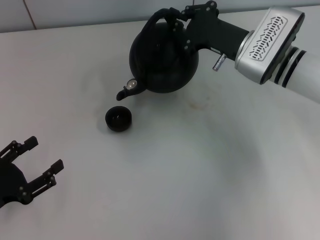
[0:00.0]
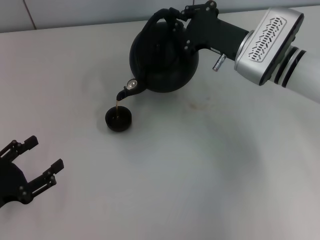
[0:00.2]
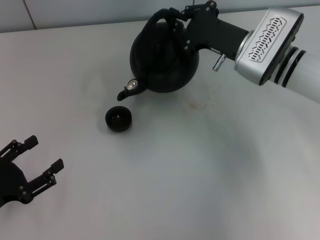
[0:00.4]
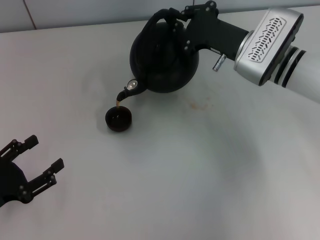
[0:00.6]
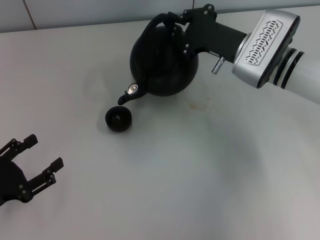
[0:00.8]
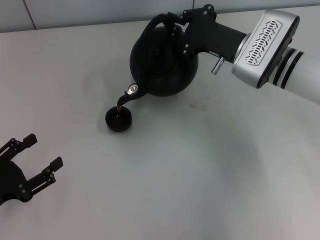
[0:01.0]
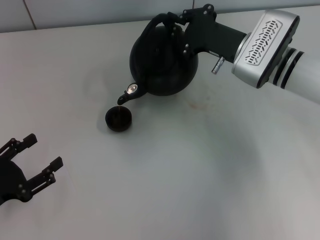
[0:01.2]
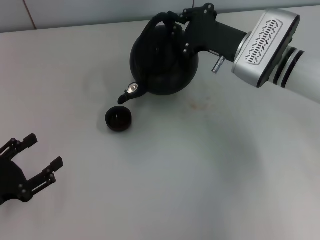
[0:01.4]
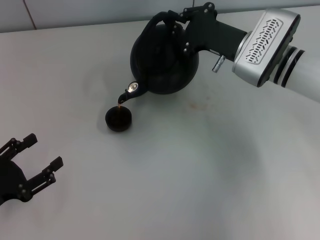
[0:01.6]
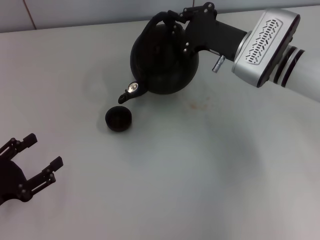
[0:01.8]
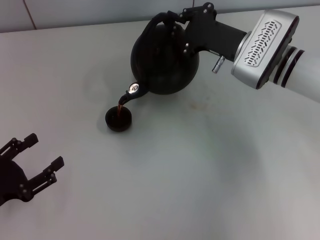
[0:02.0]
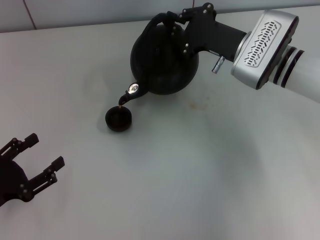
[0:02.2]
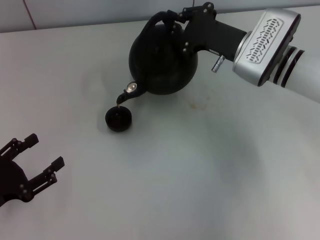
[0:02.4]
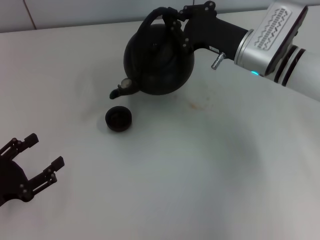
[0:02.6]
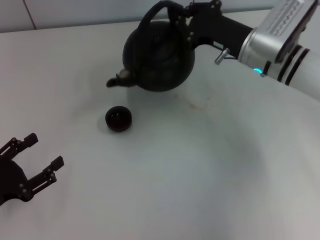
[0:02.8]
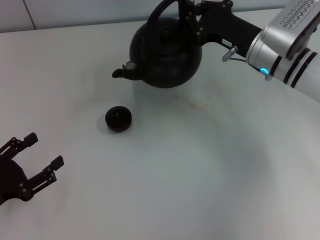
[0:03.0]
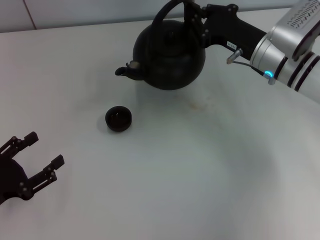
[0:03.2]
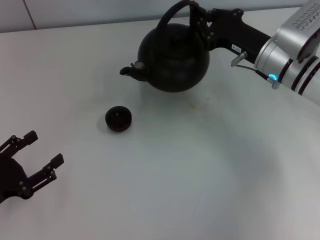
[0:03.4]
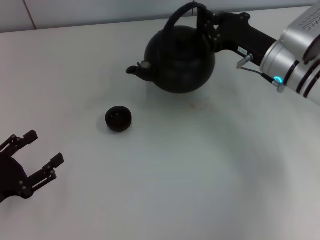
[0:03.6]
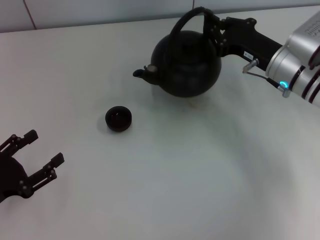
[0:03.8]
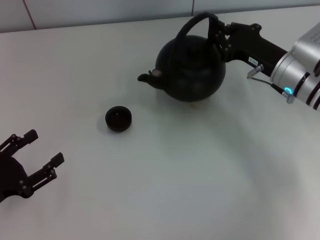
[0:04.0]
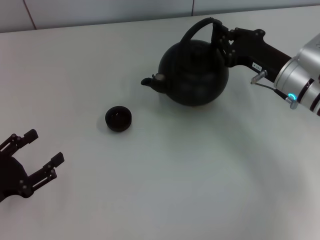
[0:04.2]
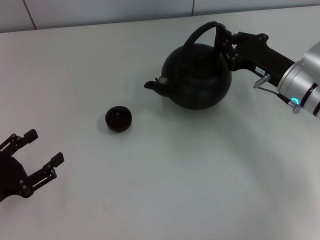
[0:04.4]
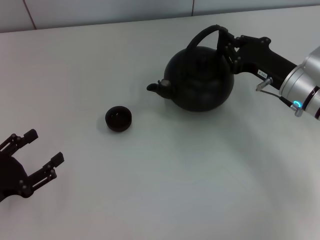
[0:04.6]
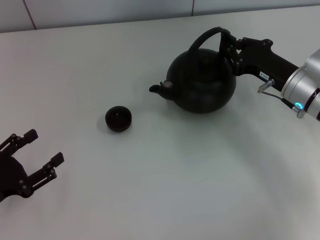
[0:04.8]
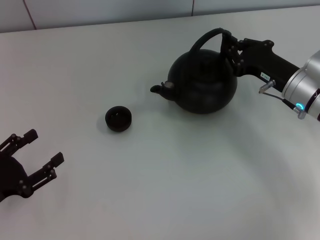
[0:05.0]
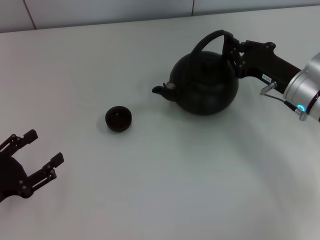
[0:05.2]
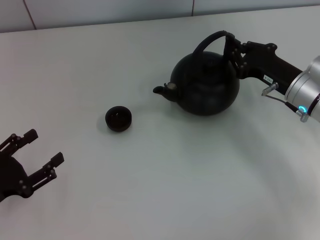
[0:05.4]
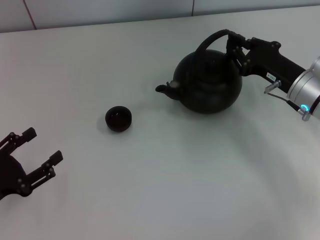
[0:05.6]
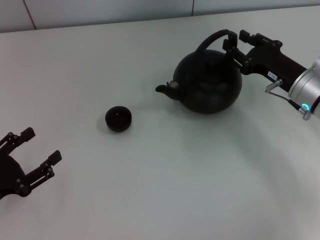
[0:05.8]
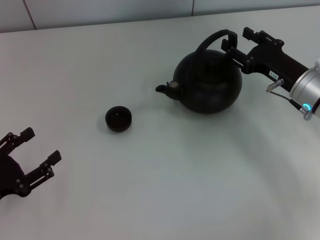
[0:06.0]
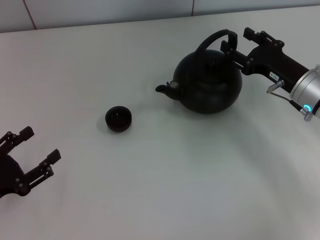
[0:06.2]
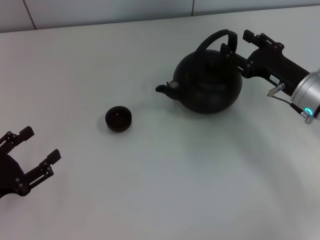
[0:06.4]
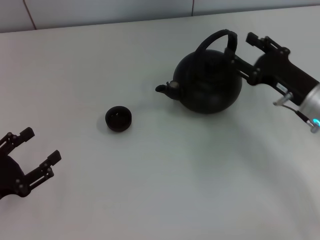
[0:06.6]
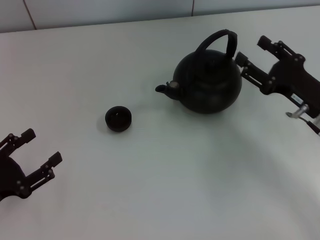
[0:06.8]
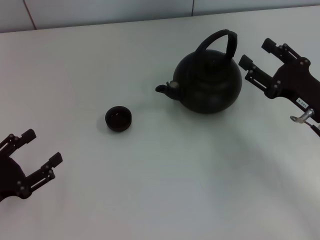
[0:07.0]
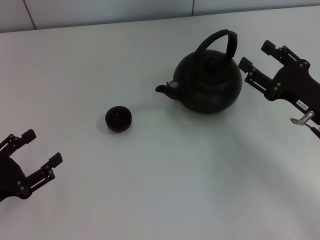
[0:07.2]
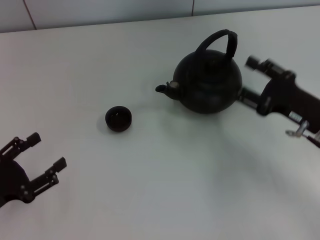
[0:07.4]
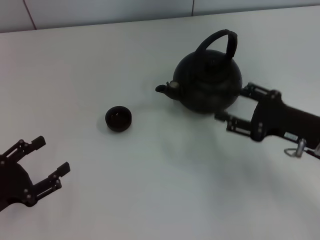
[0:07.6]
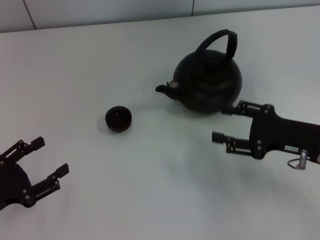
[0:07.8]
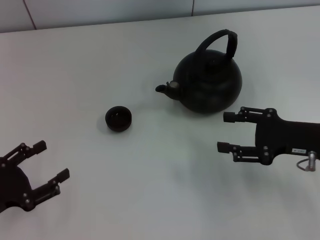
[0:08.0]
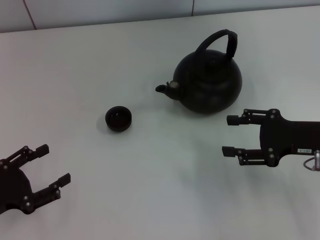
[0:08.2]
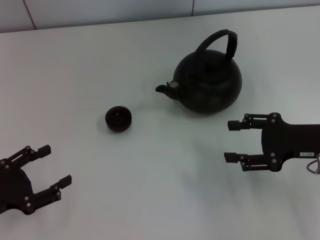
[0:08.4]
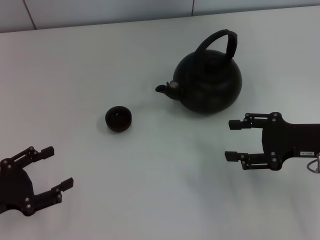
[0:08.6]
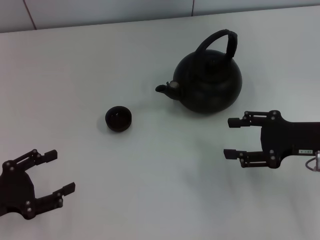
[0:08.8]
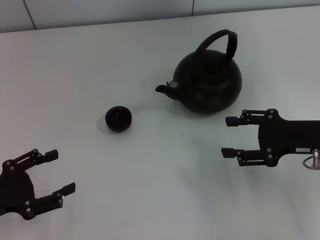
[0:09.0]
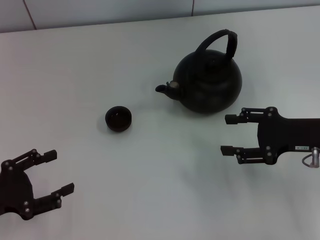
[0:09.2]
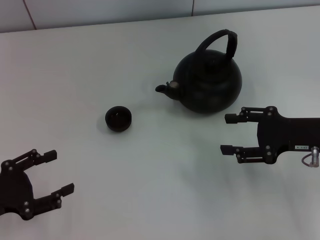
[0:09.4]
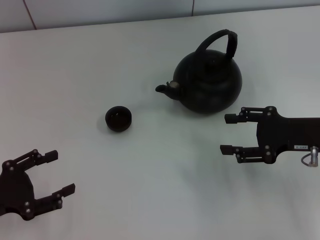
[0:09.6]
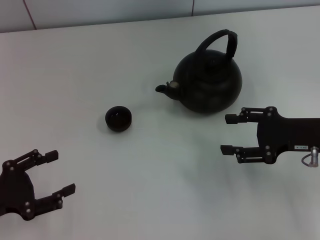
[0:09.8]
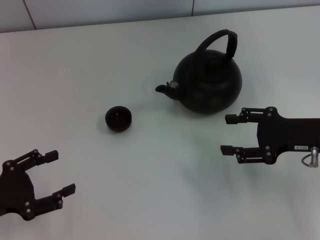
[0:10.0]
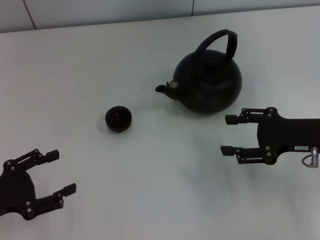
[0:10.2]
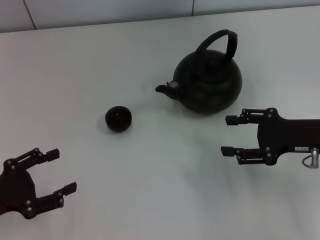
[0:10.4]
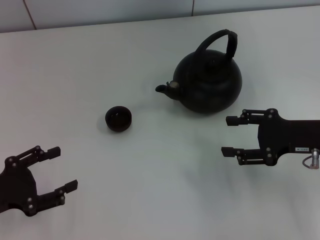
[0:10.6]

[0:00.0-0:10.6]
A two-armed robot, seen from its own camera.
Task of the whole recording: Grasp the handle of the teapot with one hand and pour tea into the teacup.
Step, 0:02.0 to 0:06.4: Put down the teapot with the right gripper.
0:00.0 to 0:01.6: Neither gripper changes place.
0:03.0 to 0:04.6: The right gripper moves some 10 cm.
0:04.6 to 0:06.0: The right gripper opens up.
0:06.0 to 0:07.6: The right gripper shifts about 10 cm backward.
0:09.0 to 0:10.6: The two grippers keep their place.

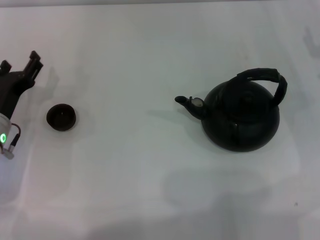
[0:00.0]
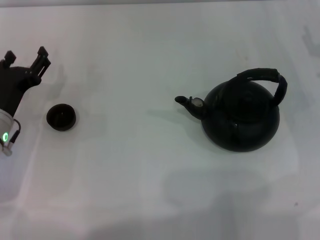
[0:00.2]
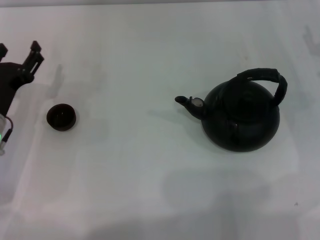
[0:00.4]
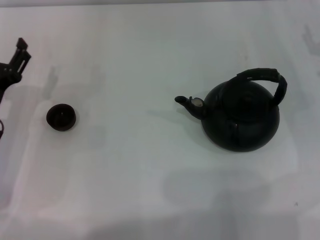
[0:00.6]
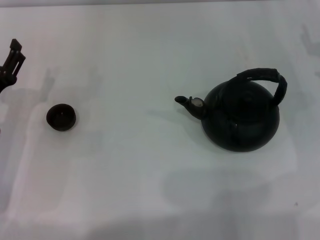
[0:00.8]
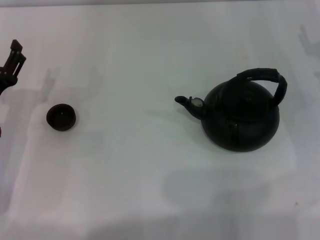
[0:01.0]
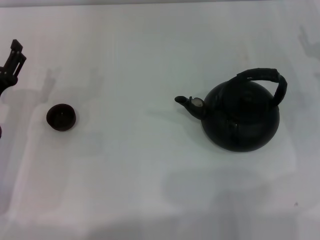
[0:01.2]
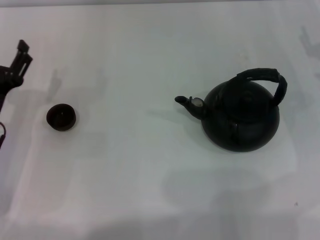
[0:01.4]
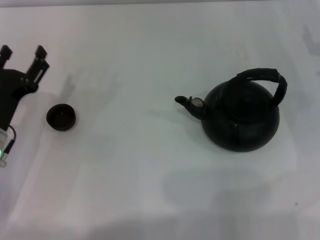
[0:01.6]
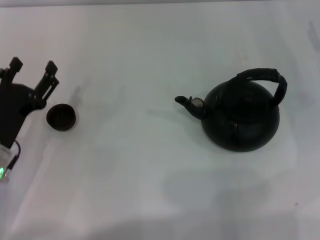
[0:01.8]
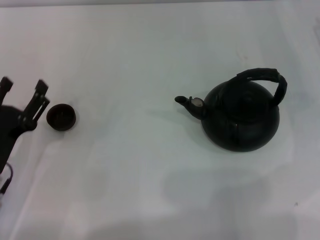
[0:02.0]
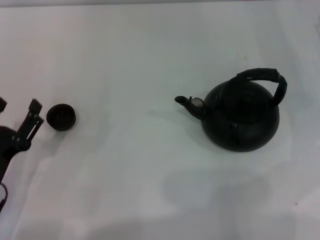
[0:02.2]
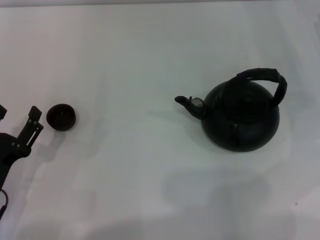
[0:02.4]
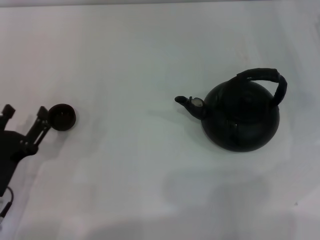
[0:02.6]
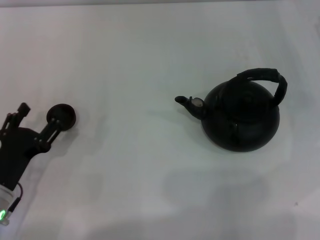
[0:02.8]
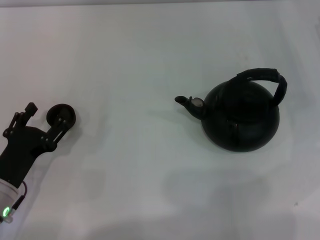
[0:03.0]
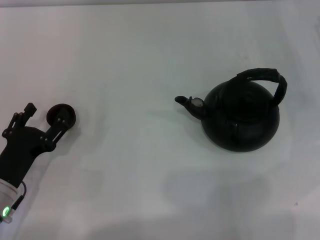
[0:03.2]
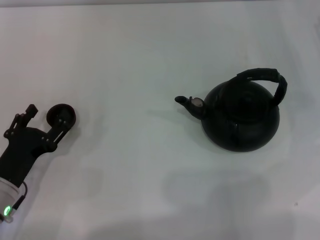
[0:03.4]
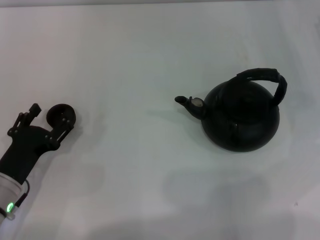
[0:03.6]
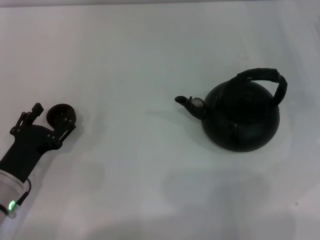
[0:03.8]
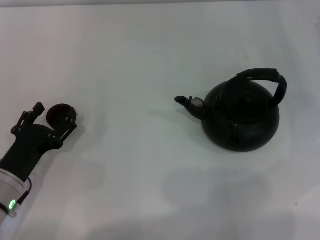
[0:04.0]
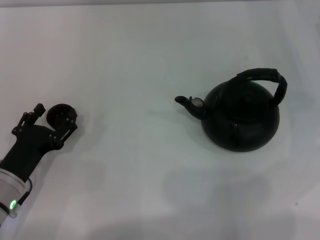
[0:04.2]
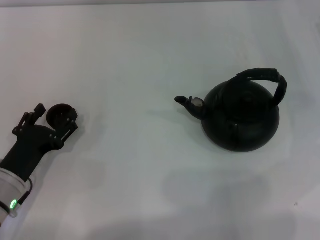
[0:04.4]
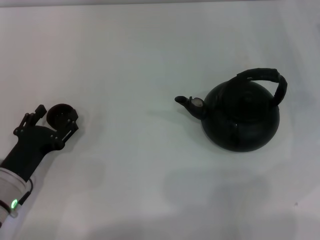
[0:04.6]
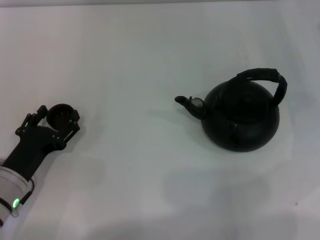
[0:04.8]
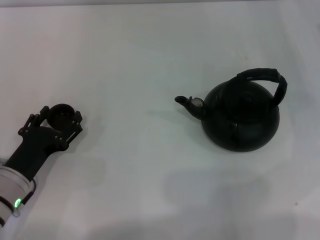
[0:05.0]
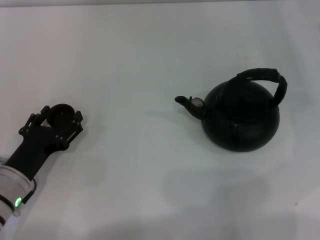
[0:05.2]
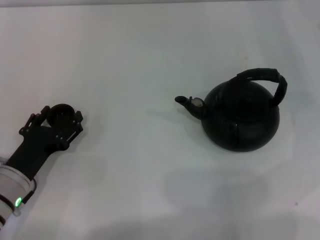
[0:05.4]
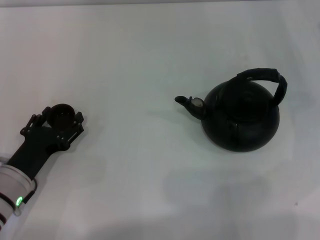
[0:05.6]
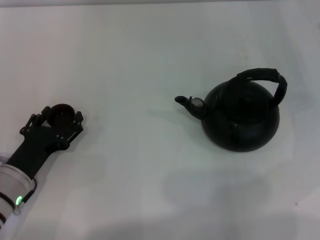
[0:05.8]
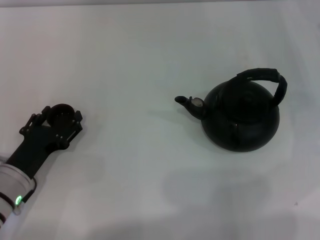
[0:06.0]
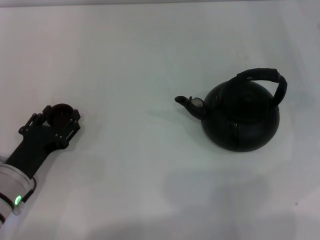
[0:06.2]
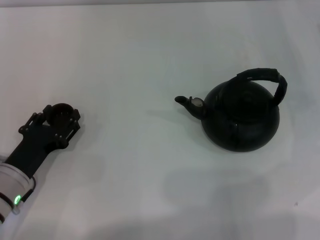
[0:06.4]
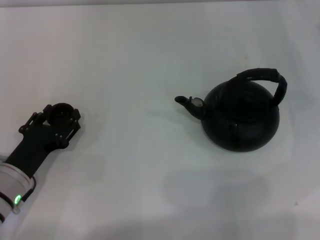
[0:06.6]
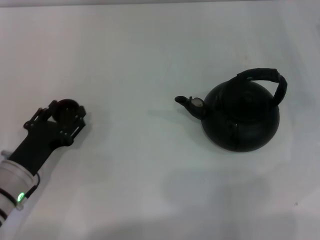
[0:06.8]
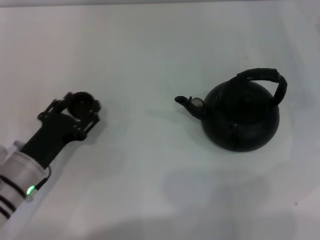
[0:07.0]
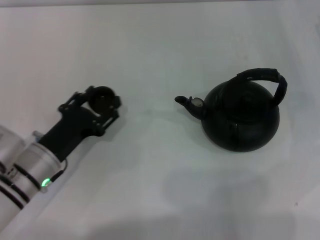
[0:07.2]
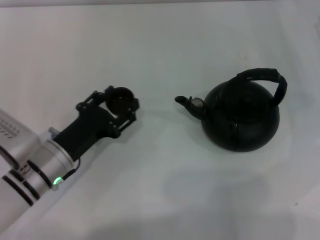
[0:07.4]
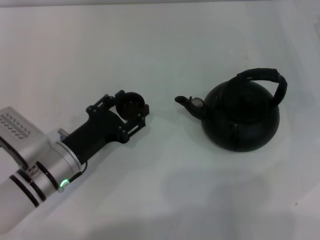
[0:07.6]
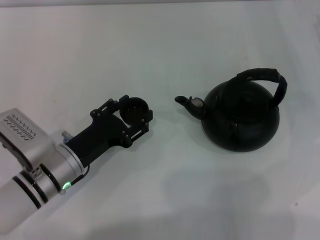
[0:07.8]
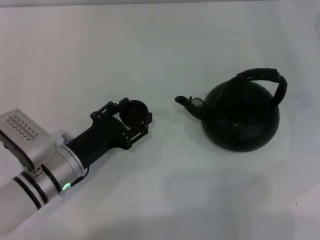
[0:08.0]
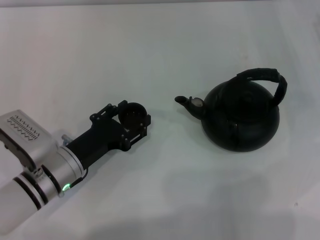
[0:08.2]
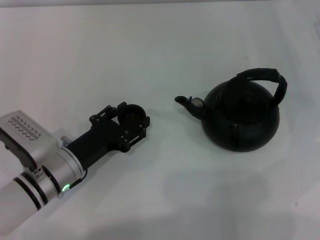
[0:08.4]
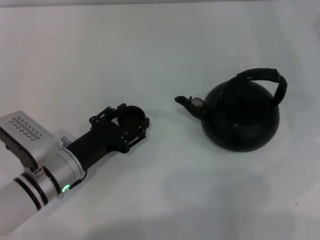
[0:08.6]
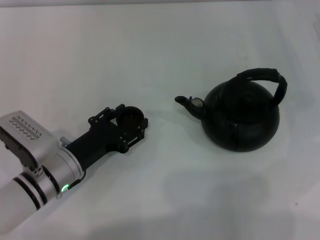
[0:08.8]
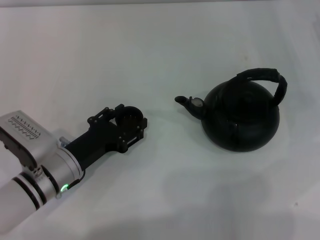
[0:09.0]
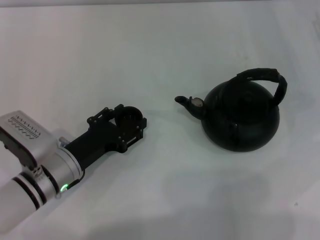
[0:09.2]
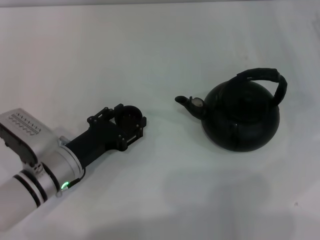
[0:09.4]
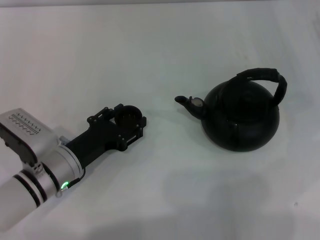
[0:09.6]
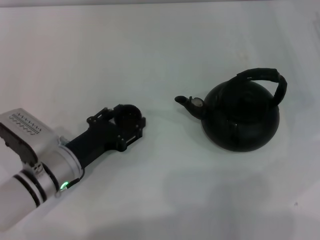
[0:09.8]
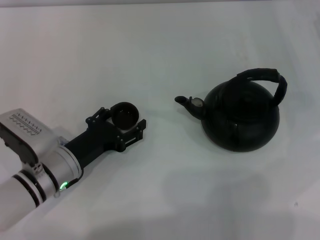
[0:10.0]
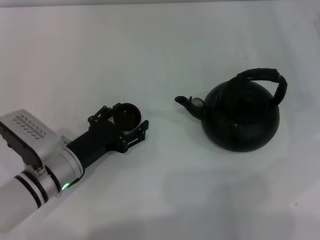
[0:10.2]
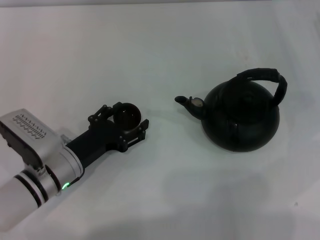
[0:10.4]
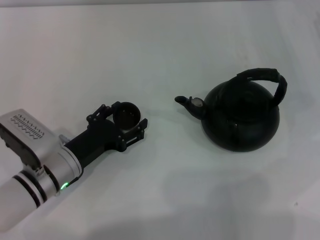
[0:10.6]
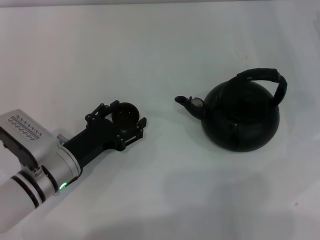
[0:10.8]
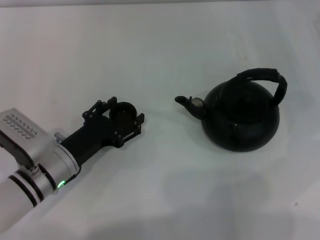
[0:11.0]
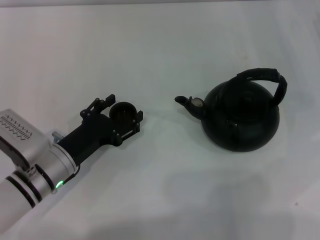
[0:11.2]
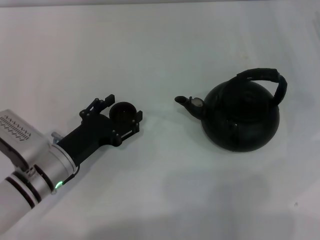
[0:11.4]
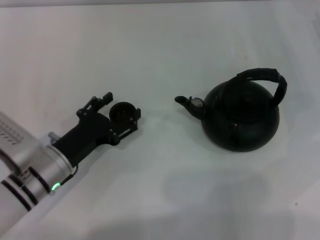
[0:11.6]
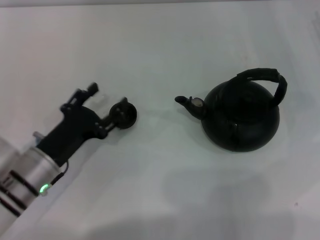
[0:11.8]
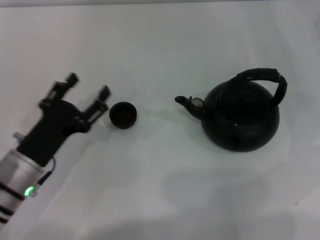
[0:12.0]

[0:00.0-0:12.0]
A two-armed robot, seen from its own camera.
Task of the whole recording: Grasp the handle of the teapot with one hand and pour tea into the teacup.
Step, 0:00.0 to 0:06.6: Pick up the teacup with the left gripper.
Step, 0:07.0 to 0:11.8: Place the teacup in the center of view with the left gripper.
0:00.0 to 0:01.6: There are only small adjustments of the grippers.
0:01.6 to 0:03.0: The left gripper travels backward by about 5 cm.
0:03.0 to 0:04.4: The grippers make only small movements.
0:04.4 to 0:06.0: Both grippers stay about where they are.
0:06.0 to 0:07.6: The left gripper heads to the right, covering roughly 5 cm, and closes.
0:07.6 to 0:09.0: There are only small adjustments of the grippers.
0:09.0 to 0:10.4: The left gripper opens.
0:10.4 to 0:12.0: The left gripper ends up about 5 cm from where it was.
